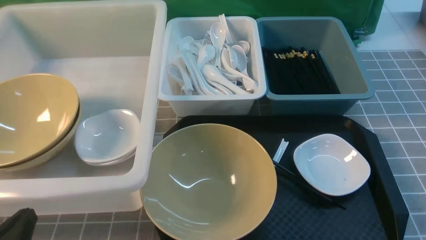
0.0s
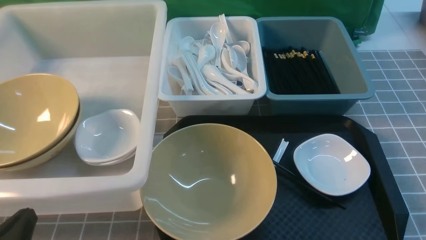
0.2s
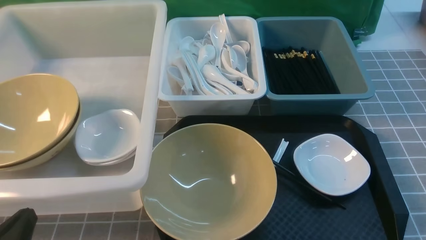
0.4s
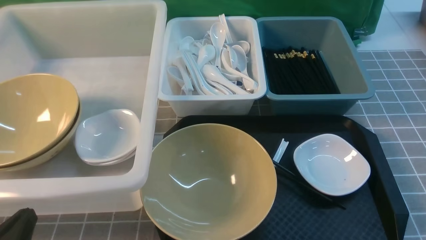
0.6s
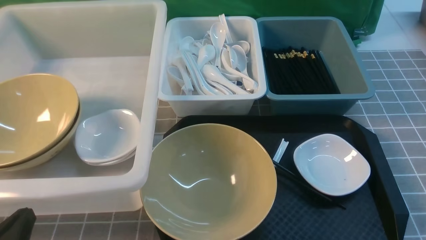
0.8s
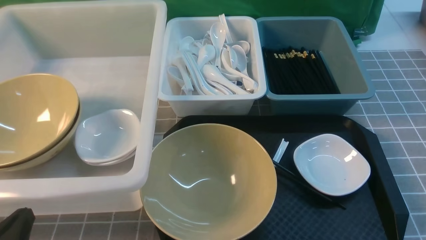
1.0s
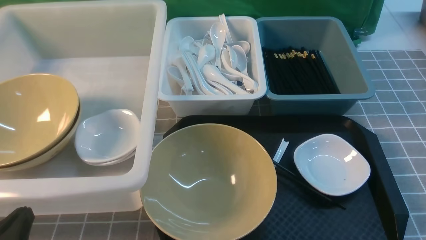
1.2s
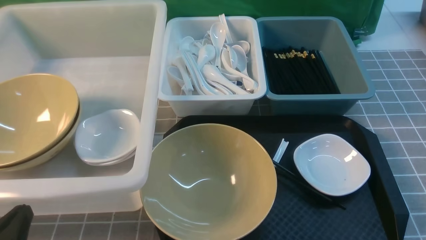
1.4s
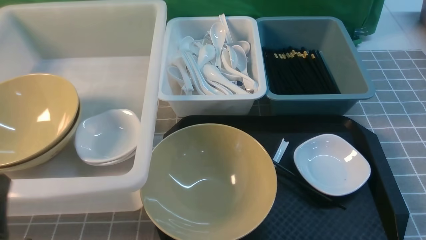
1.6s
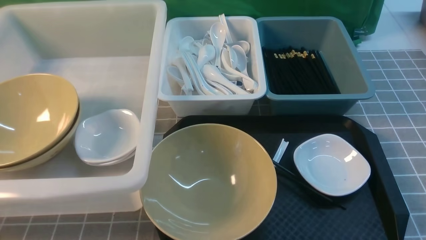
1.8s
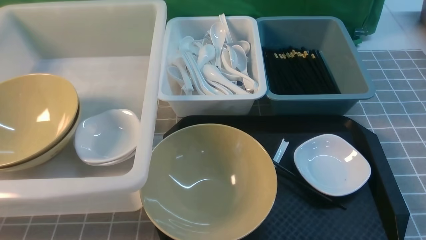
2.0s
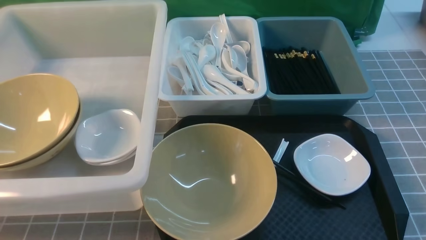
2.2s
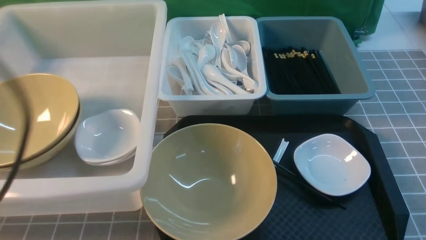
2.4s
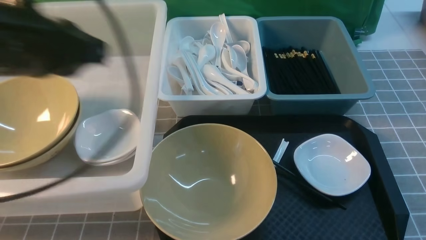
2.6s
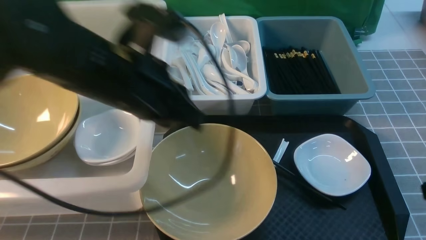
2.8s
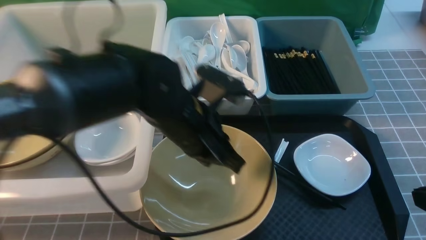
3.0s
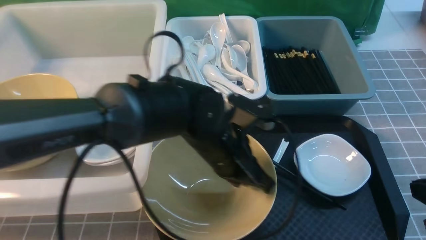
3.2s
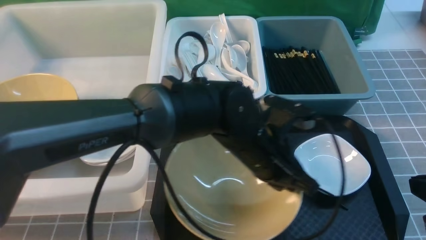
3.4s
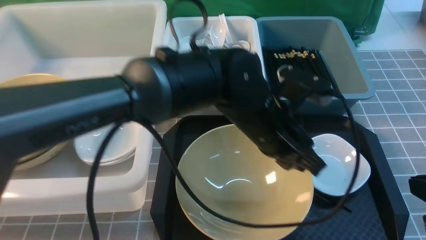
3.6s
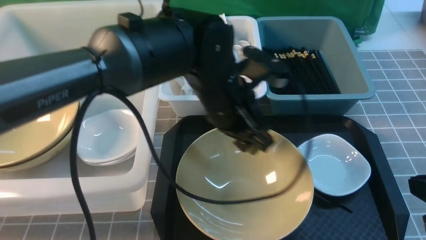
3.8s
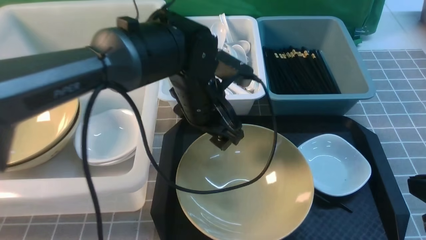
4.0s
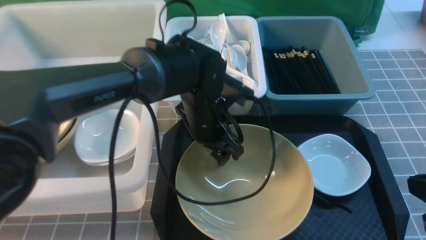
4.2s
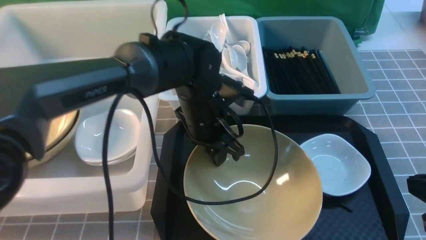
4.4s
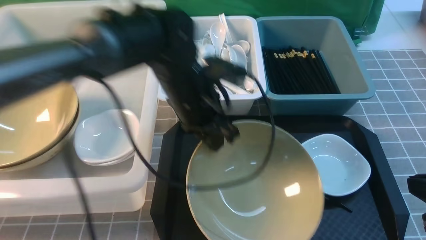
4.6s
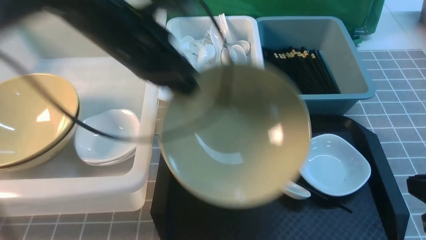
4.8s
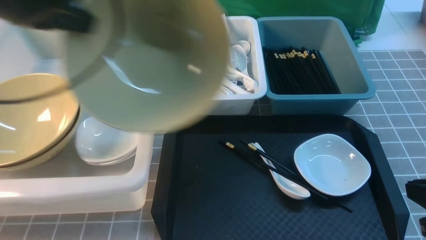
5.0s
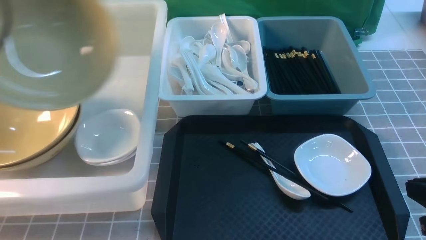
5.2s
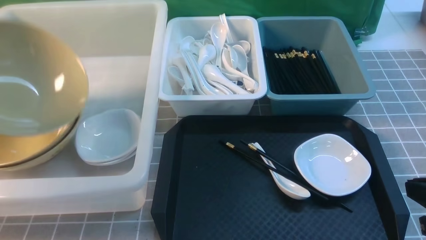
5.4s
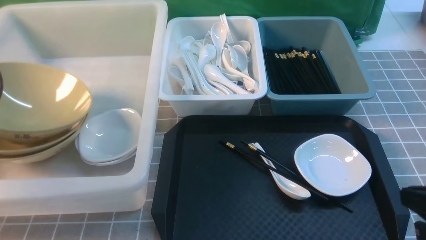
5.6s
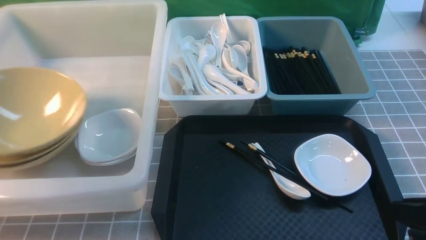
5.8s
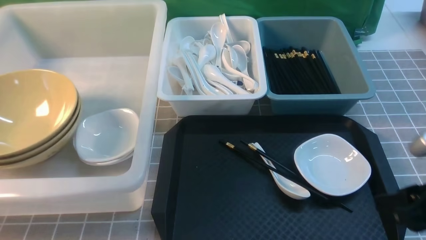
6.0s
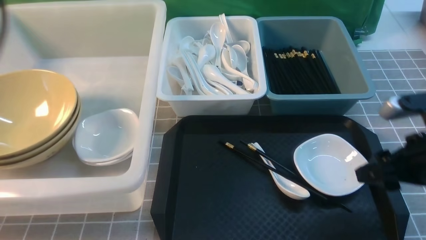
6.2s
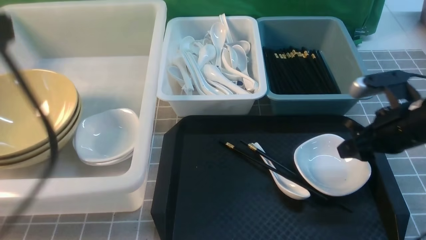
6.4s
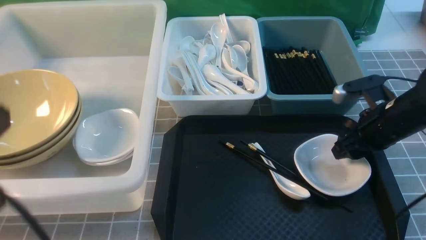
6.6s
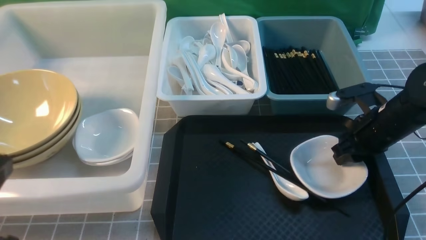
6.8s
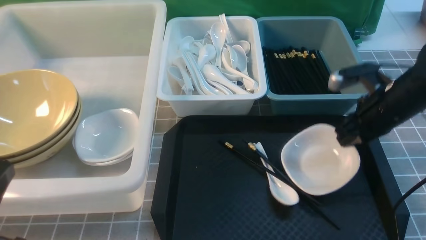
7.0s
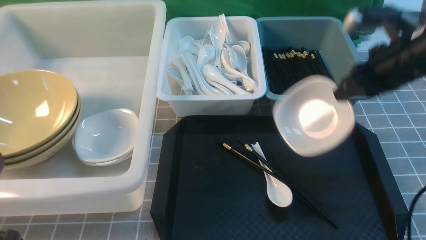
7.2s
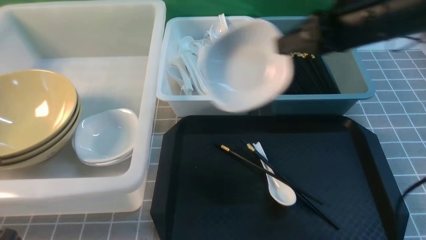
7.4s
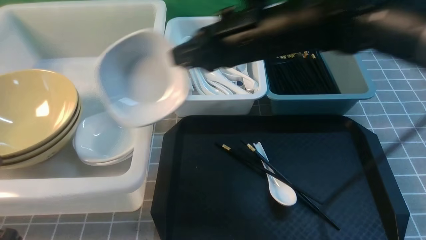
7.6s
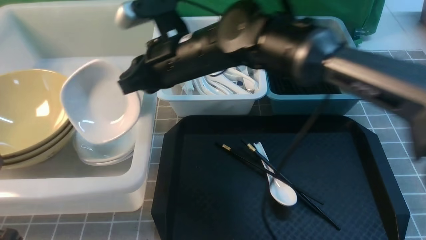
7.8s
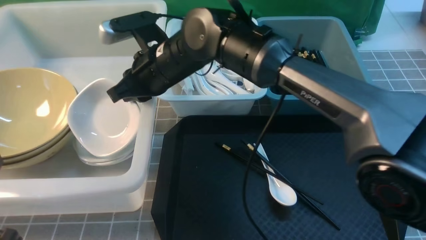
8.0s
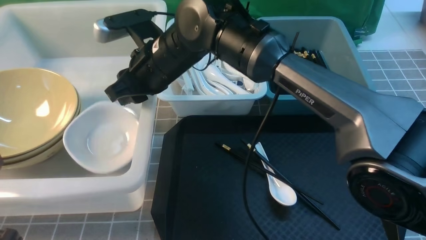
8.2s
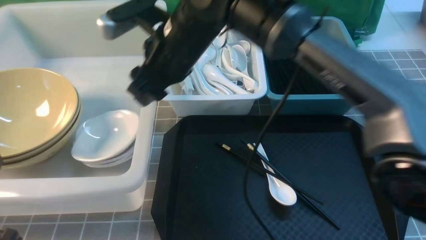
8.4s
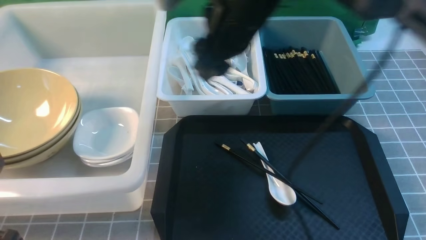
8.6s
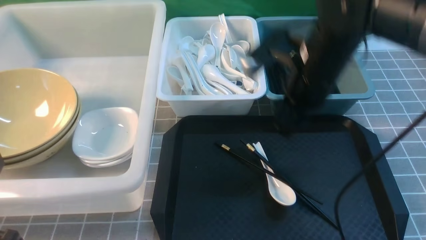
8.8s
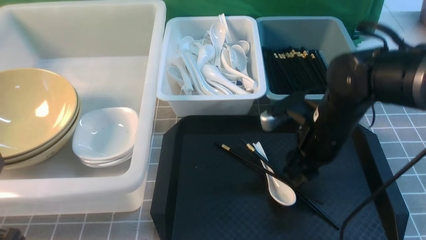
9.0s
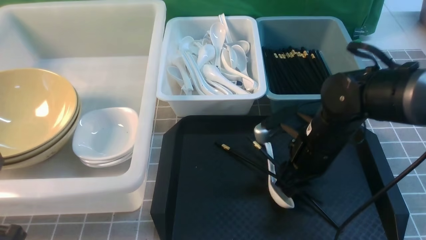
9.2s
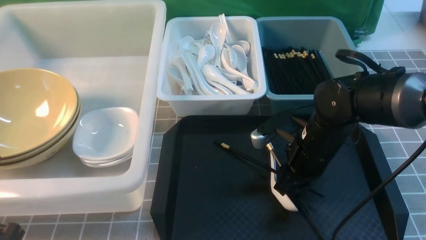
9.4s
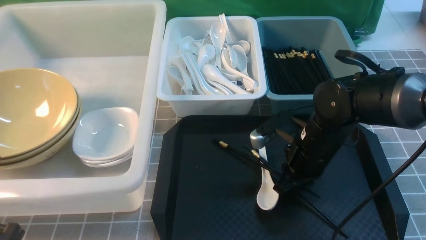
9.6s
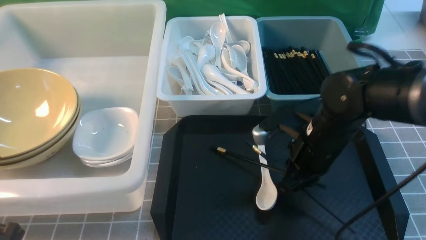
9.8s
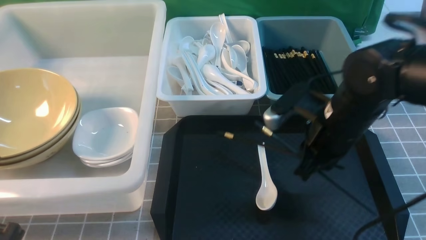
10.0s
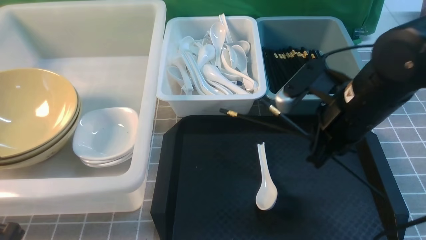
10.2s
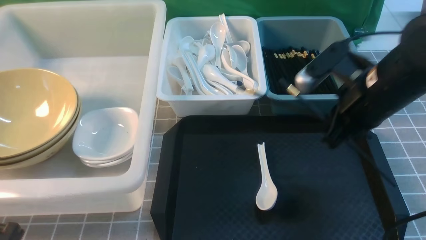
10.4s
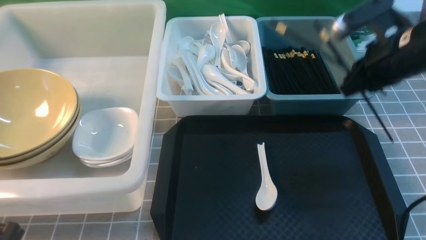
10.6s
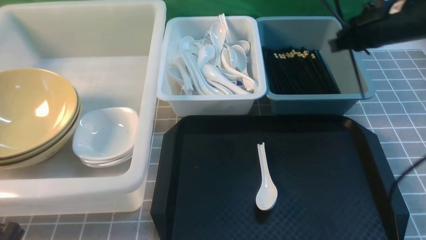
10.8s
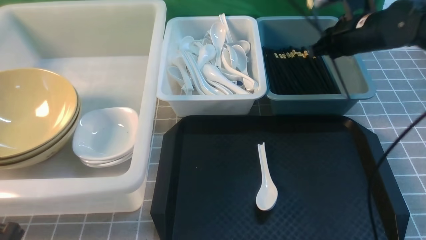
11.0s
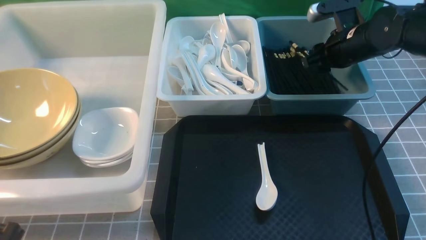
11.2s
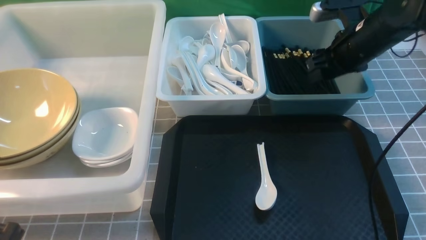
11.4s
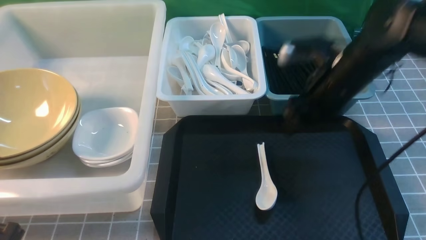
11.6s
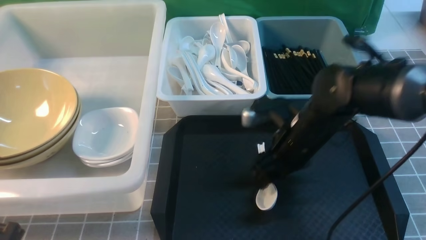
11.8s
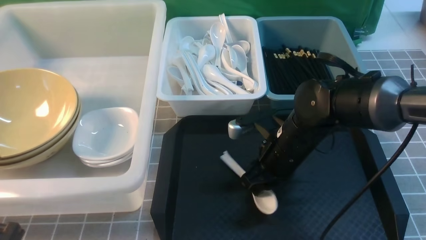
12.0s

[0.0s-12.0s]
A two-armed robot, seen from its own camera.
Task of the whole recording: on grey table put chopsticks spoon bowls plates into blue grey white boxes.
Step, 0.0s to 4.6s: use the left arm to grab the yellow noodle bowl on the left.
Step, 4.8s to 5.8s: use the left arm to put the noodle bowl into the large storage box on the left.
Step, 6.0s to 7.0s: use the right arm to grab the plate.
Step, 7.2s to 8.2s: use the right arm to put the plate into the large storage box on the left.
Step, 8.4s to 10.0s: use the right arm to grab the chopsticks.
Step, 10.2s to 11.2s: use the right arm to put the chopsticks into the small storage box on the right.
1.6s to 3.0s: The left gripper shifts some 30 cm to the right and forward; the right gripper shifts some 10 cm forward and upward.
3.0s to 4.4s: The left gripper moves forward, roughly 5 cm, goes to the right and returns, approximately 10 cm each way, and opens up.
4.4s to 6.0s: The left gripper goes about 35 cm to the left and upward, and opens. Meanwhile the right gripper opens its fingers.
6.0s to 7.6s: The left gripper is displaced backward, downward and to the right by about 25 cm, and closes its fingers; the right gripper shifts roughly 30 cm to the left and forward, and closes its fingers.
7.6s to 9.0s: The right gripper goes some 15 cm downward and to the right, and opens its fingers.
9.0s to 10.4s: The right gripper moves upward and to the right, about 10 cm, and closes its fingers.
10.4s to 12.0s: The right gripper is displaced downward and to the left by roughly 15 cm, moves roughly 15 cm forward and comes back, and opens, then closes again.

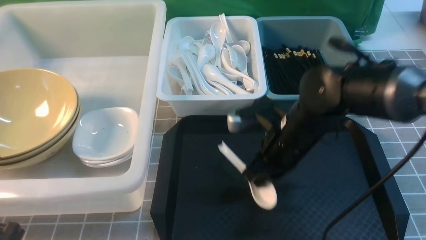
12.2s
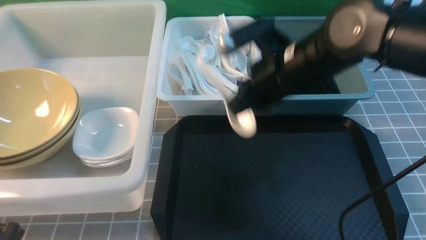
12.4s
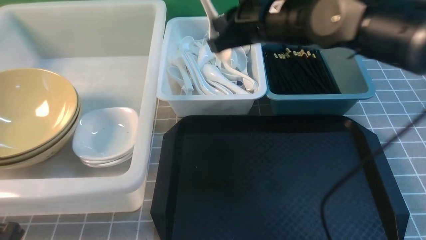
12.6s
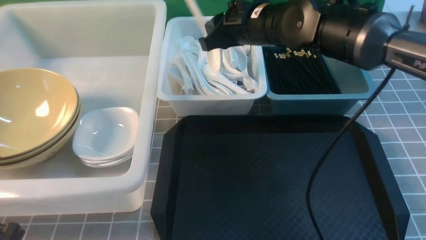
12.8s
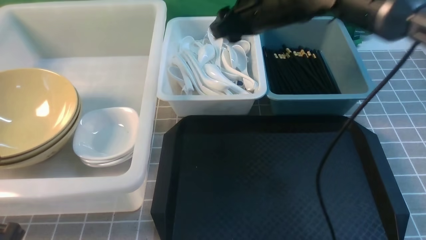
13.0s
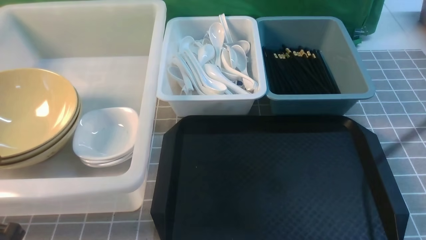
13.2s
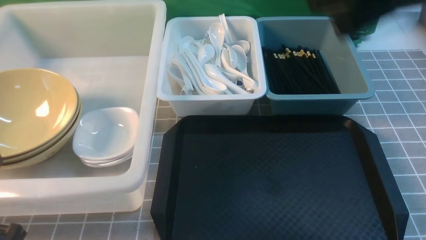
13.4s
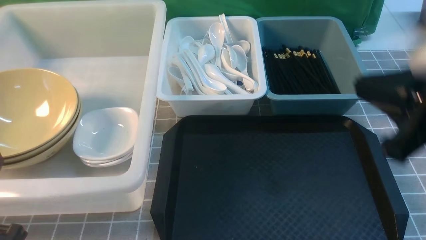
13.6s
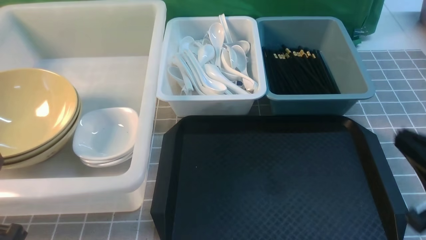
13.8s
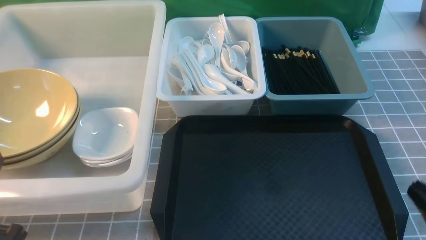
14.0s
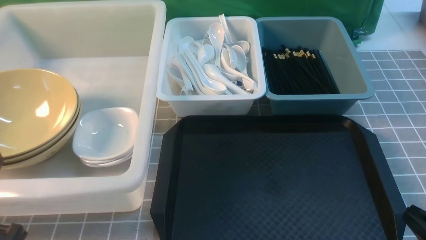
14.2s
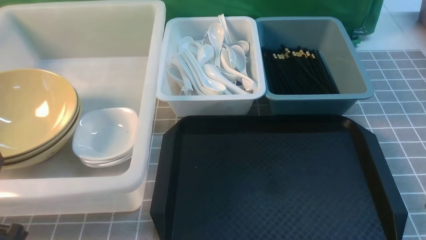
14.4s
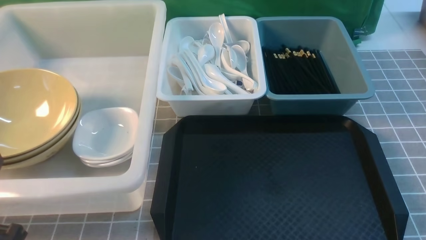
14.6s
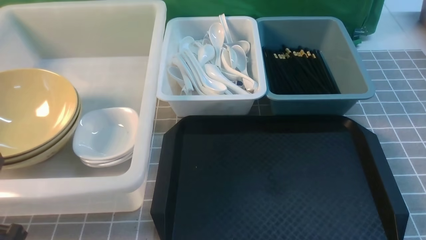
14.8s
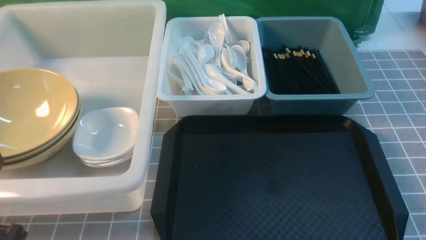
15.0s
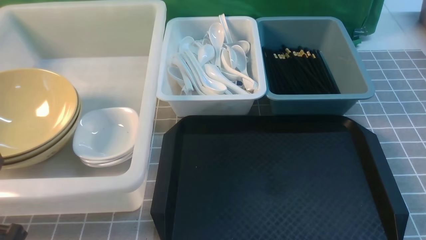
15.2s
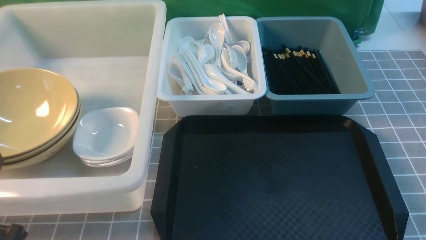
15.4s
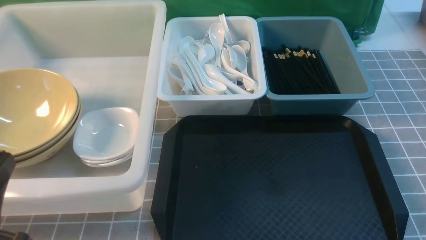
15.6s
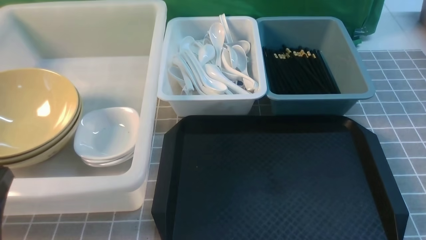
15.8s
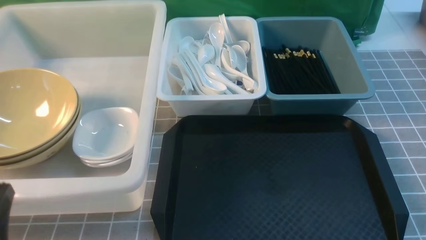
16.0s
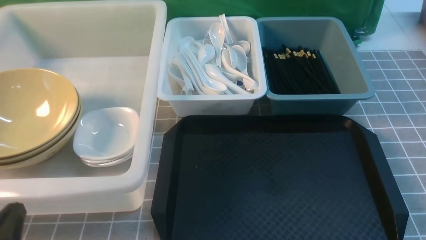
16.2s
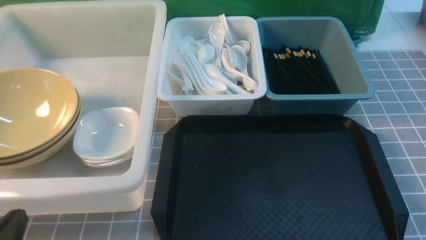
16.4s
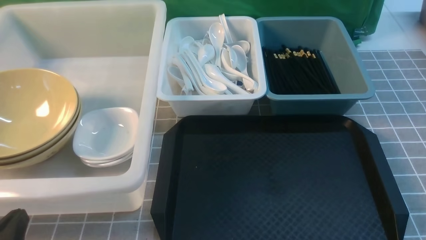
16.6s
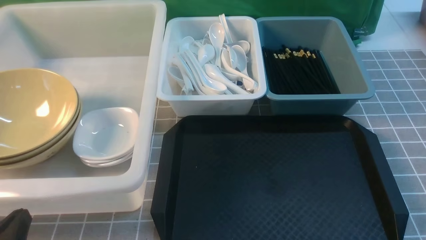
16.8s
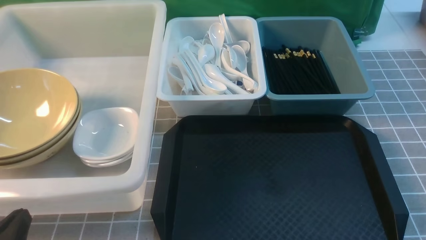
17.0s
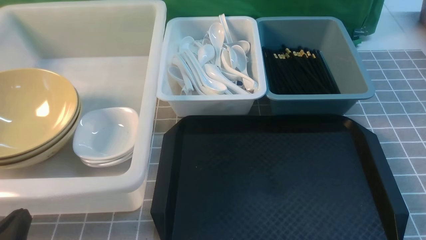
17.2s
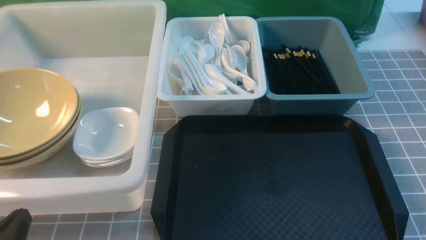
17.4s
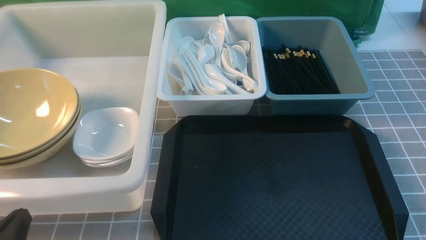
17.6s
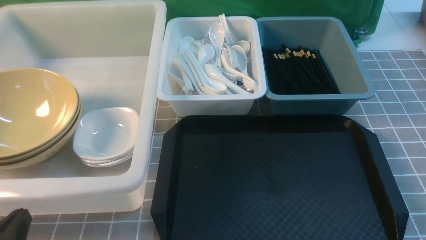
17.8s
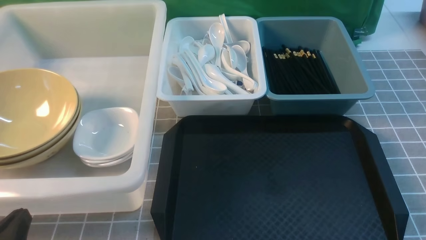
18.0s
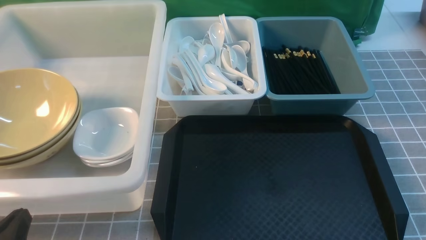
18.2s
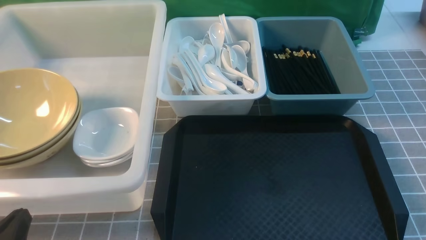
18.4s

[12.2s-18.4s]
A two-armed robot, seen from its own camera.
Task of the whole recording: on grey table put chopsticks spoon bowls plates into blue grey white boxes.
Step, 12.4s to 12.8s: use the right arm to put the soup spoon into the small storage box in the middle.
12.2s to 13.8s: The right gripper heads backward and to the right, covering approximately 25 cm, and opens and closes again.
13.8s to 15.4s: The right gripper goes some 10 cm downward, backward and to the right.
16.8s to 18.4s: Neither gripper changes place.
